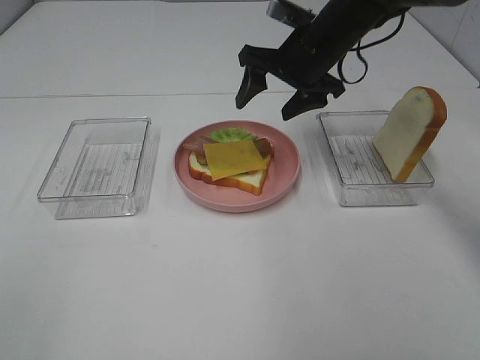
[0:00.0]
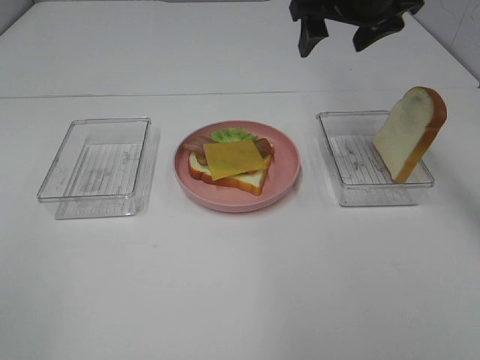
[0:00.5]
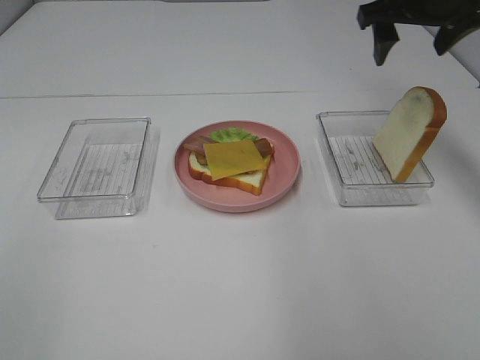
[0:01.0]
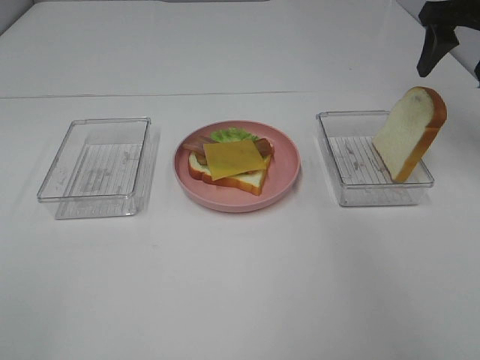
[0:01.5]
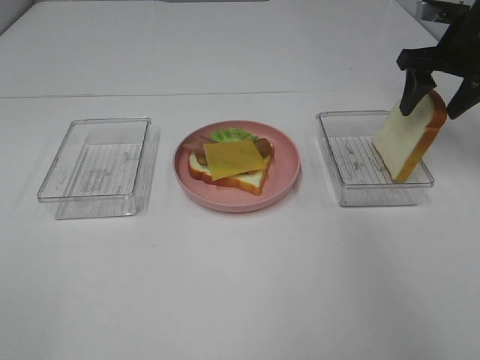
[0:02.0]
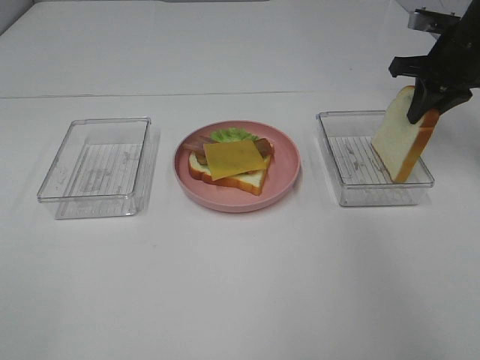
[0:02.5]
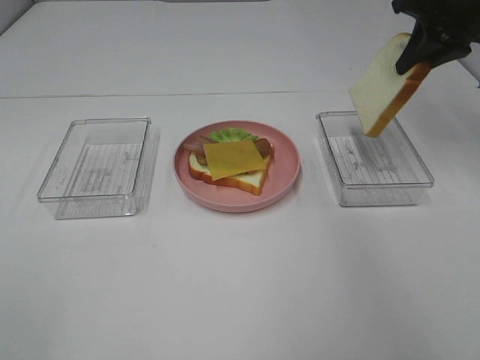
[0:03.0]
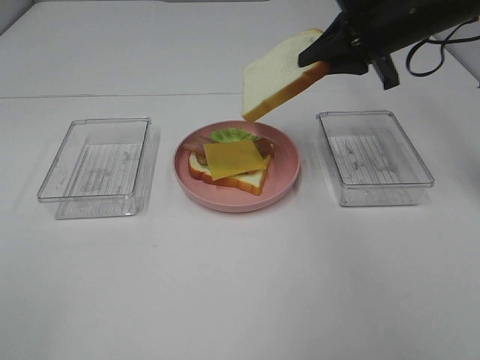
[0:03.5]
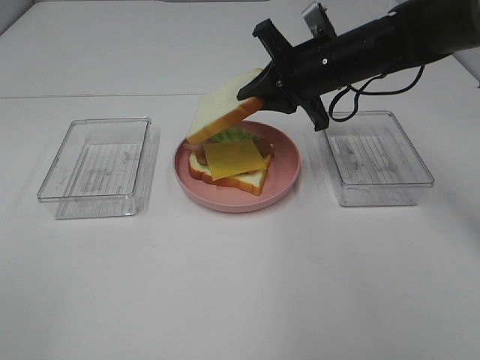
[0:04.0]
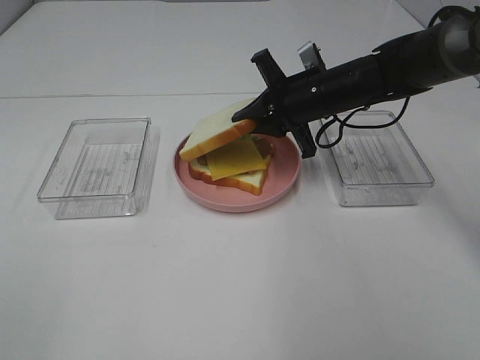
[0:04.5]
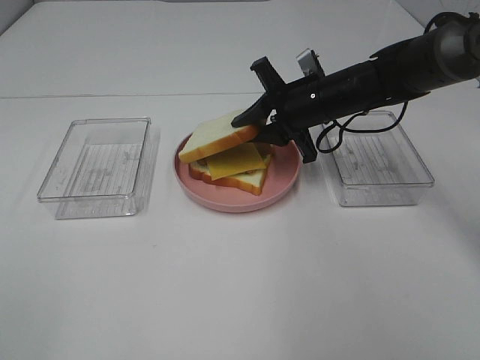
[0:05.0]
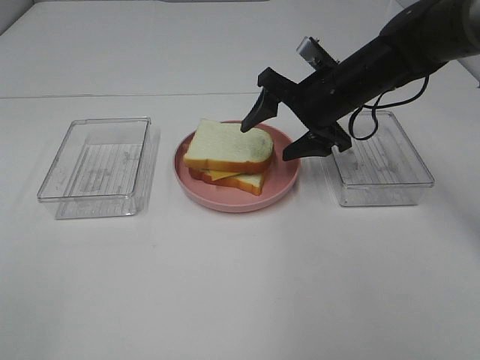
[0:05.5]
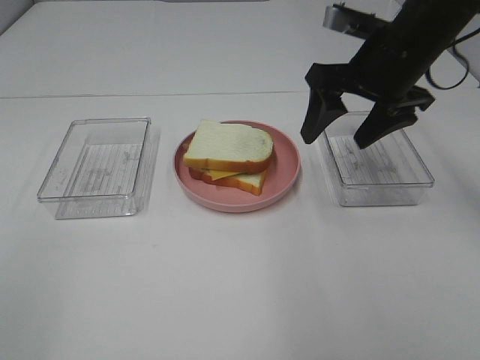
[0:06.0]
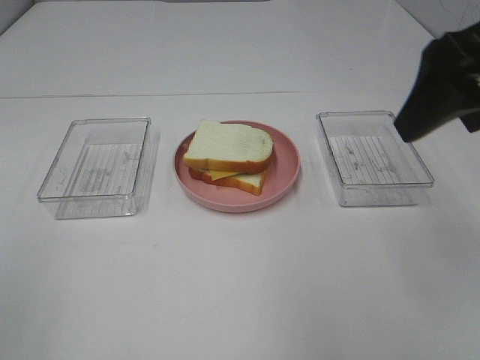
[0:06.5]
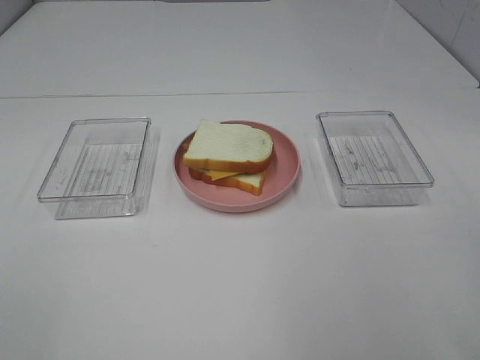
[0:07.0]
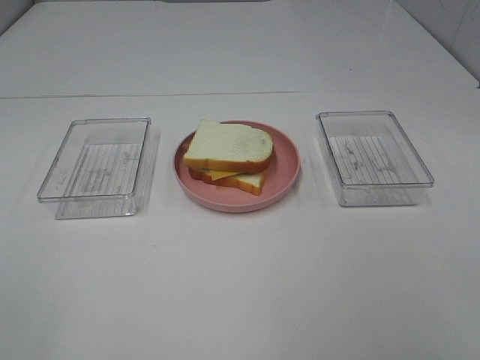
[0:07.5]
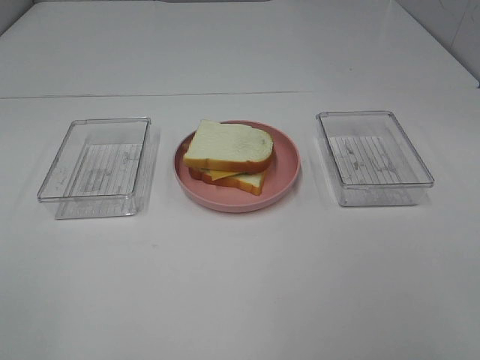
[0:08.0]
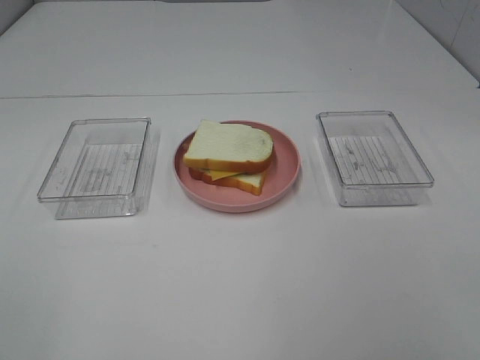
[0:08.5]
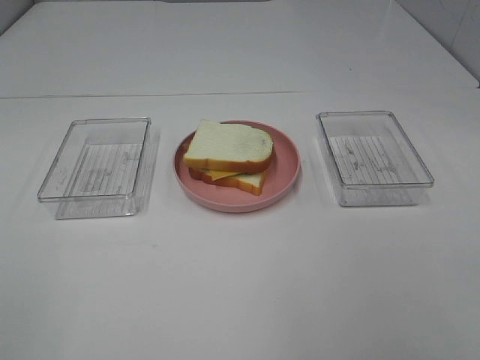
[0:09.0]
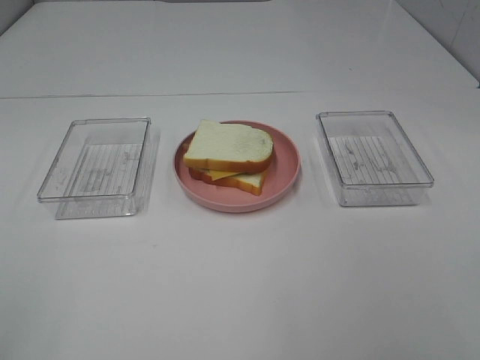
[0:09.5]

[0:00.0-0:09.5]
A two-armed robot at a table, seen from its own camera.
Task of the whole recording: Make sandwiches.
Step, 0:00.5 to 0:02.5: Right hand:grab the bread slice.
Step, 0:03.0 to 0:05.5: Right hand:place the bread slice on the cheese slice.
0:00.0 to 0:02.0: The right gripper goes some 20 cm to the right.
0:02.0 to 0:04.0: The right gripper goes approximately 15 cm to the left, and closes its fingers.
0:04.0 to 0:05.5: The right gripper opens its fingers.
0:05.5 to 0:07.5: The right gripper goes roughly 35 cm backward.

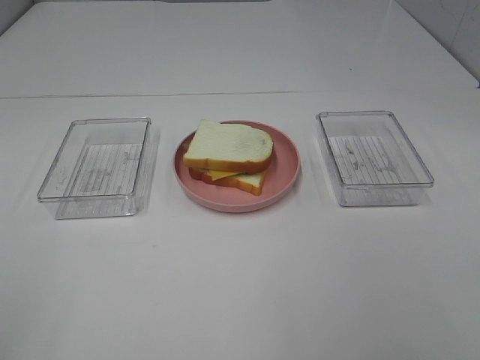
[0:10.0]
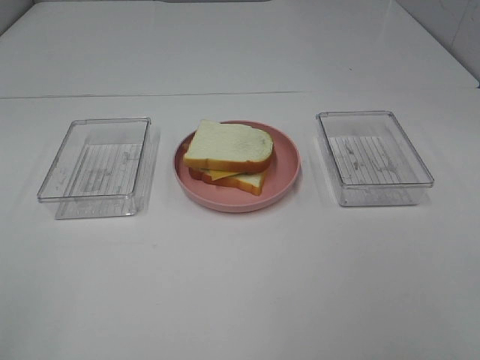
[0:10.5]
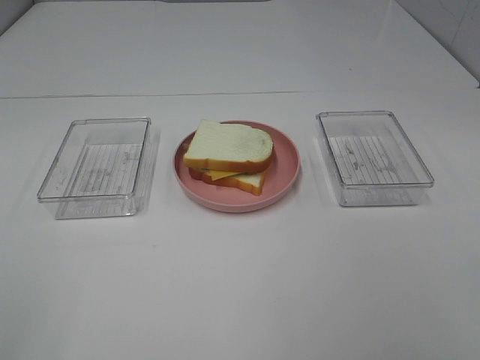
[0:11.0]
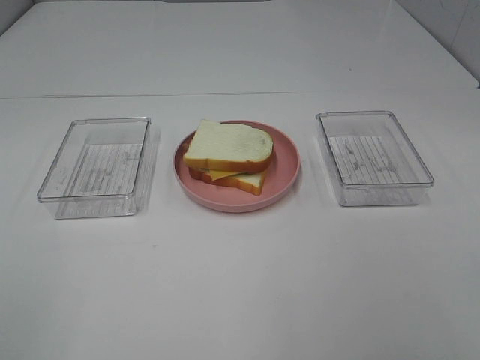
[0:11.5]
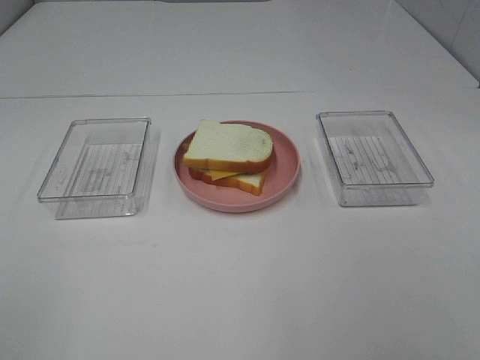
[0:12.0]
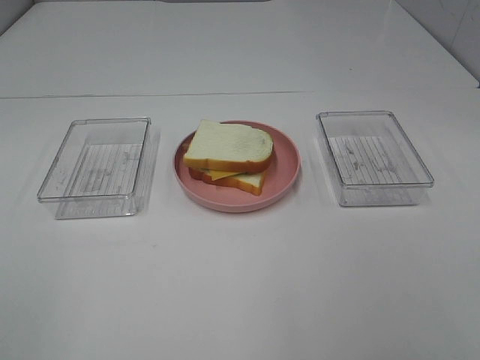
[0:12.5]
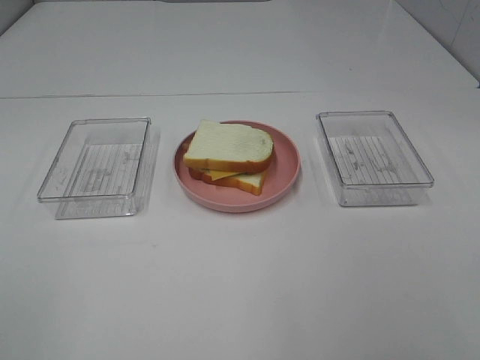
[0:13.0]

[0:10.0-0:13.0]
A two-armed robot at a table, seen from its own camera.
Task of the whole recording: Make sandwiches.
0:10.0 to 0:11.5: The two grippers keep their place.
0:11.5 to 0:13.0: Both grippers stay about where they are.

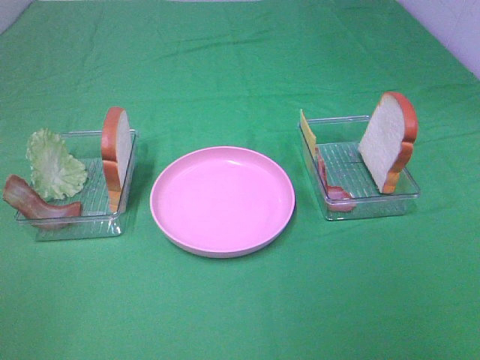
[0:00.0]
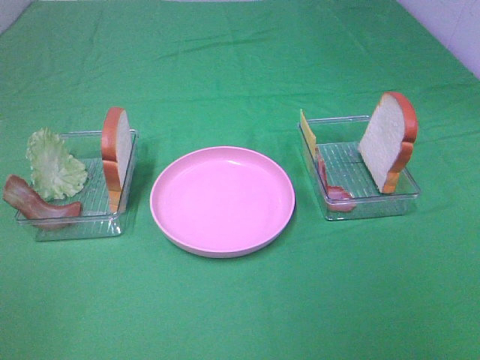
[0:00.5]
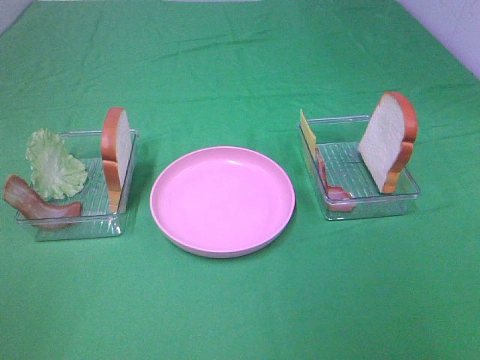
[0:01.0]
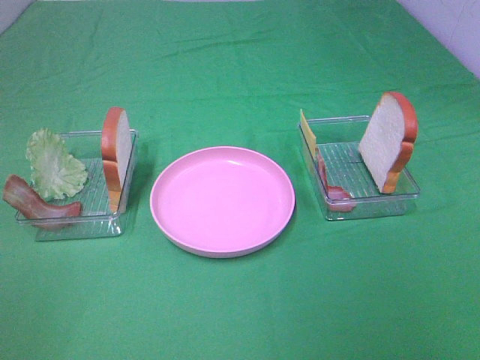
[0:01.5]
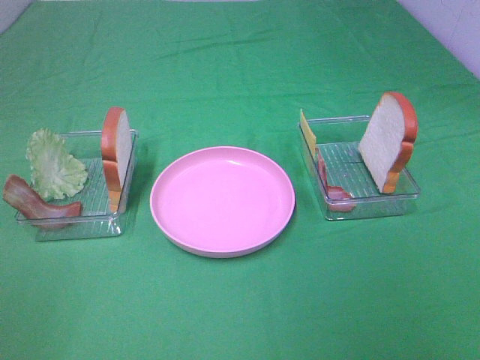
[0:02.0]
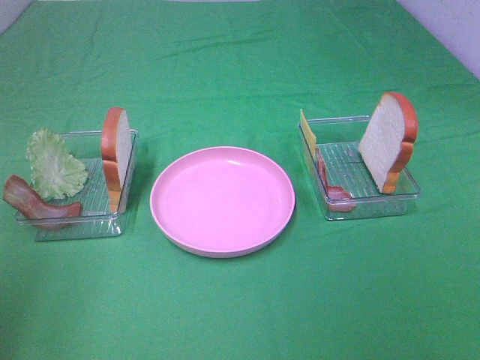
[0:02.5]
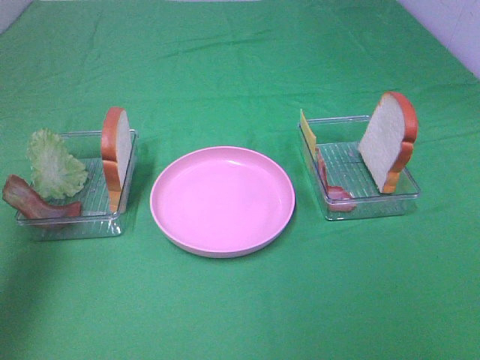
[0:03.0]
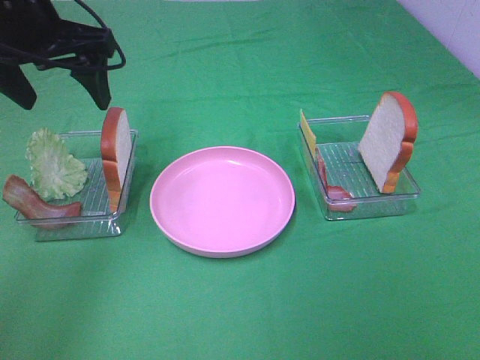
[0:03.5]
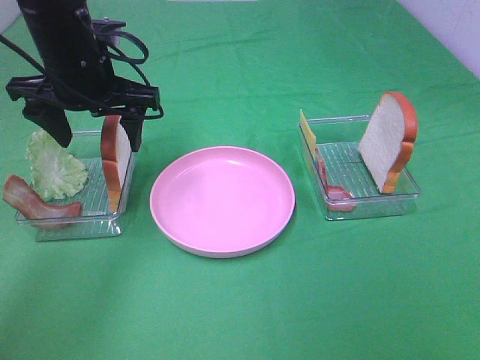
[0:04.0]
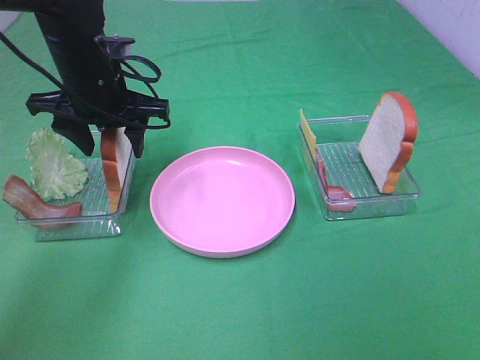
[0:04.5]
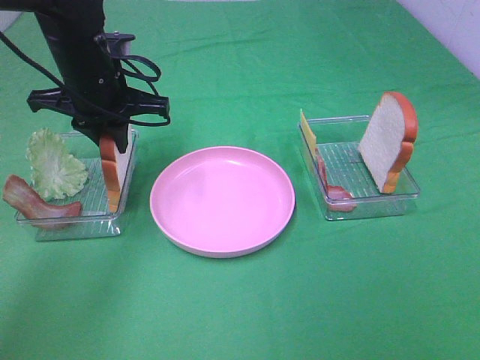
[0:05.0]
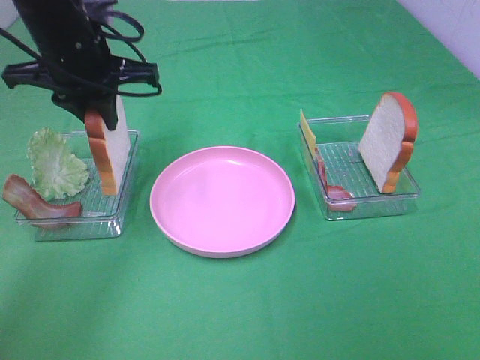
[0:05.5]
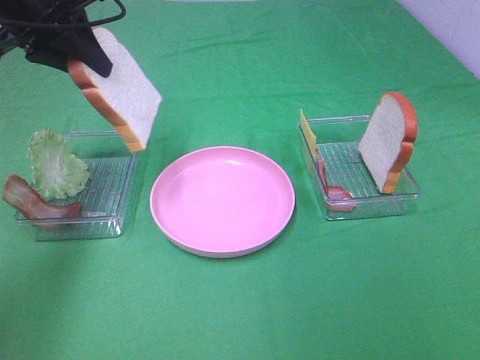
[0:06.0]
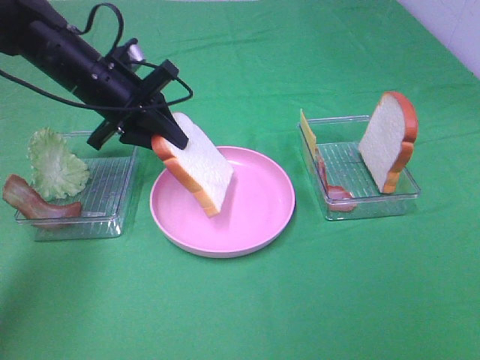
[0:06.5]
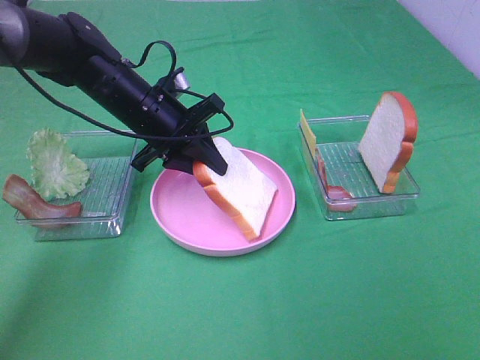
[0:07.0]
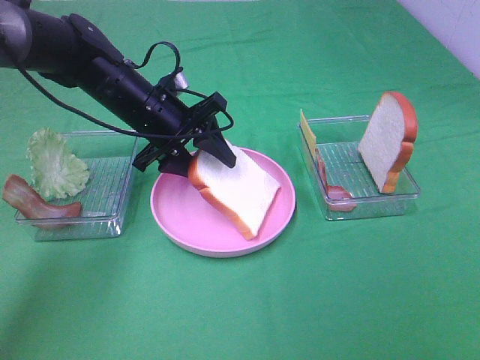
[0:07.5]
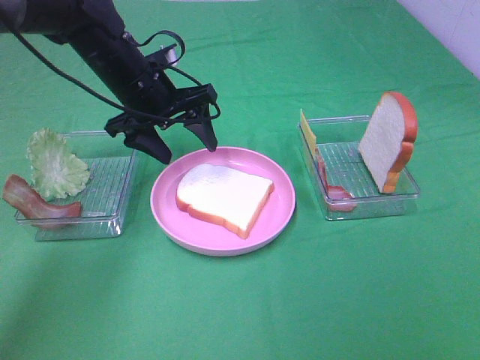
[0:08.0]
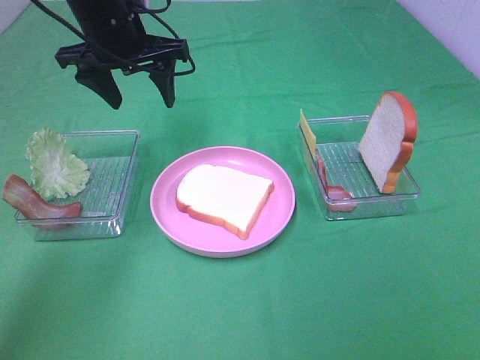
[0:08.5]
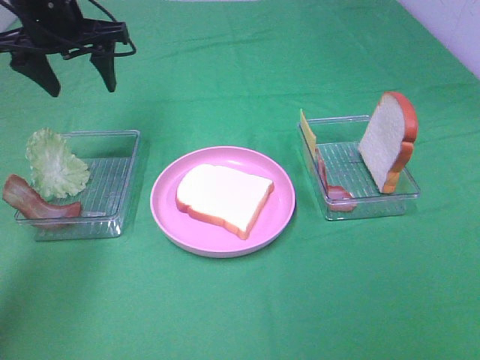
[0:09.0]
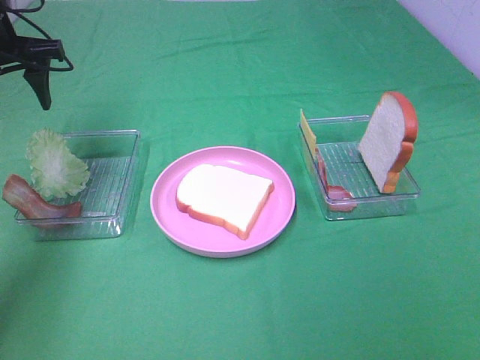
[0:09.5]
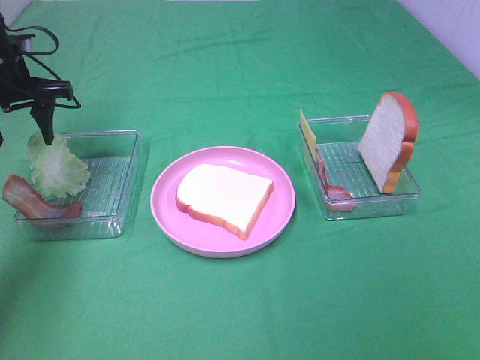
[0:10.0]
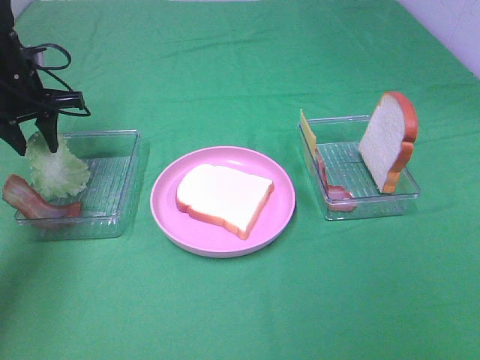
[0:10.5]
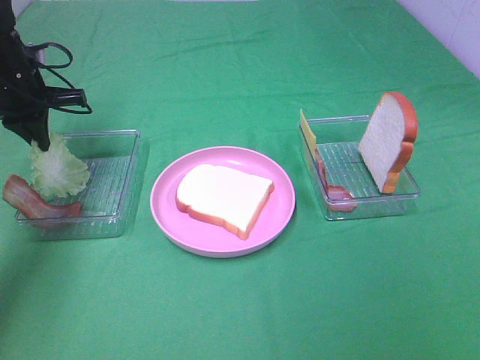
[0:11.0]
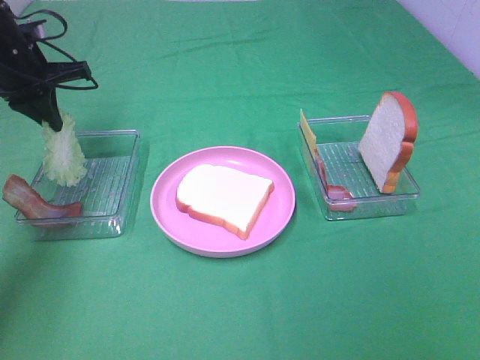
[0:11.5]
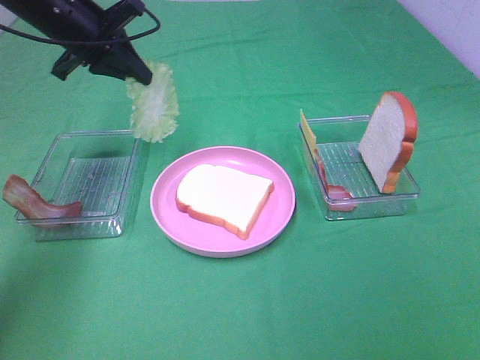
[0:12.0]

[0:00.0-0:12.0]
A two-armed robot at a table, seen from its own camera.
Task of the whole recording: Make sandwiches.
Step, 0:00.0 to 0:05.0: Left hand:grab the bread slice.
Step, 0:05.5 to 0:08.0: Left hand:place the bread slice on the plate.
Step, 0:08.5 to 0:11.0: Left hand:grab the lettuce slice.
0:00.0 to 0:02.0: Both grippers stay about where they are.
0:02.0 to 0:04.0: The left gripper shifts some 40 cm forward.
0:04.0 to 0:06.0: The left gripper heads upward and to the left, covering about 10 cm, and closes.
0:06.0 to 0:08.0: The left gripper heads downward and to the right, covering roughly 15 cm, and opens its fingers.
0:08.0 to 0:10.0: The left gripper shifts some 15 cm to the left.
0:10.0 to 0:12.0: The left gripper shifts roughly 10 cm to the right and upward, and closes.

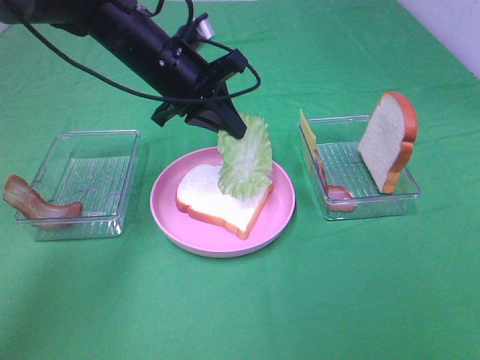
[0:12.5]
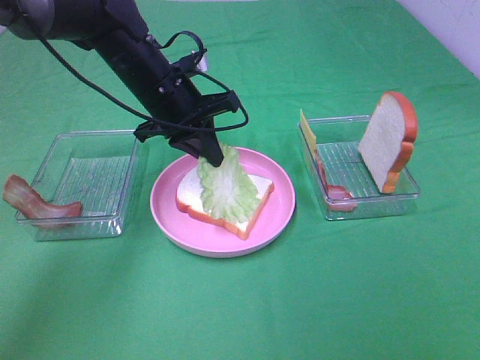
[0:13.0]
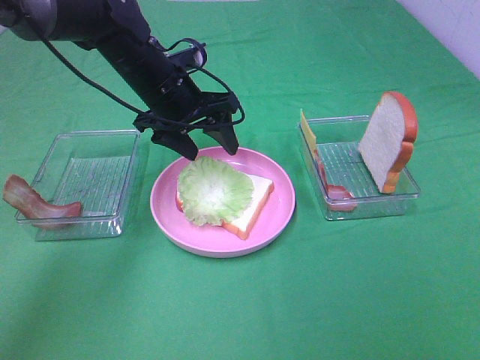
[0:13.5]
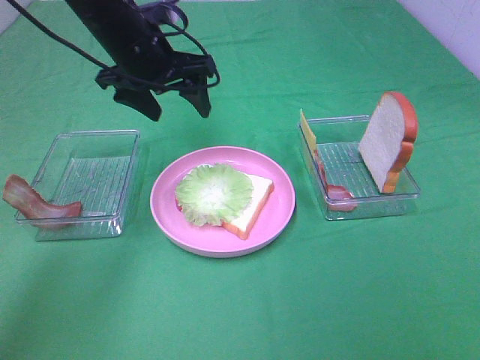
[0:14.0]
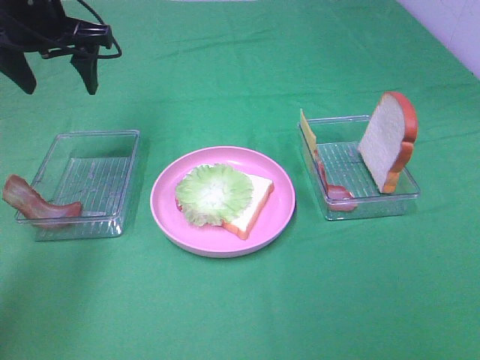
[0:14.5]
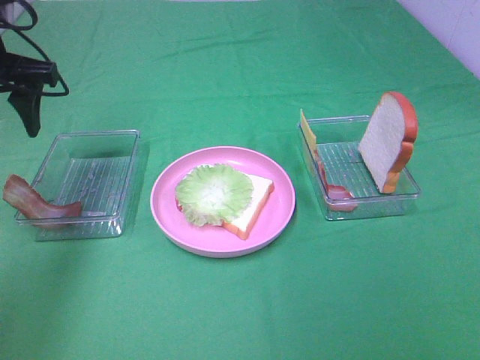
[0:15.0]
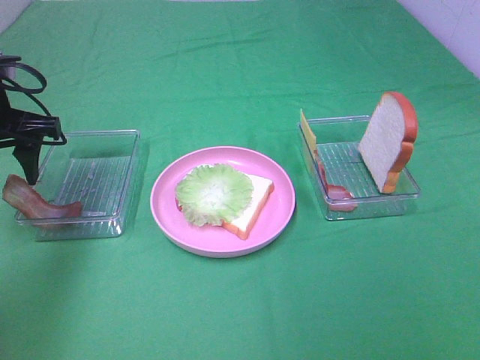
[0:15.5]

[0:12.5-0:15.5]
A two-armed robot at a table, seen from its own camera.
Task of the whole recording: Make sandwiches.
0:12.5 to 0:14.0: The left gripper ends up roughly 5 cm from where it was, and opens.
0:14.0 to 0:15.5: The left gripper moves to the left and backward, some 15 cm.
